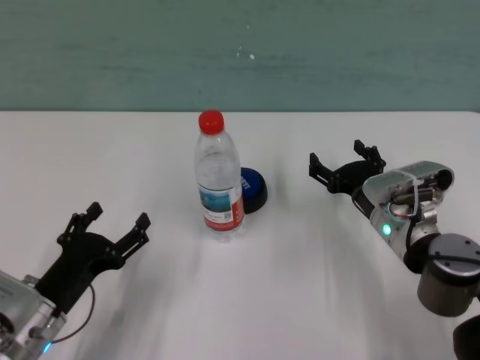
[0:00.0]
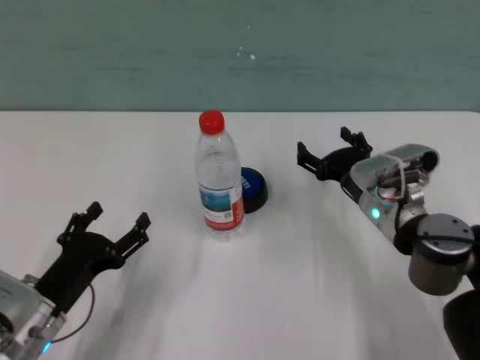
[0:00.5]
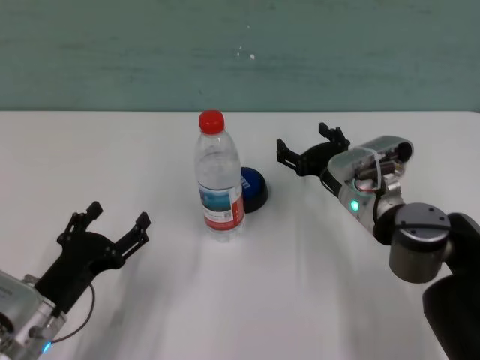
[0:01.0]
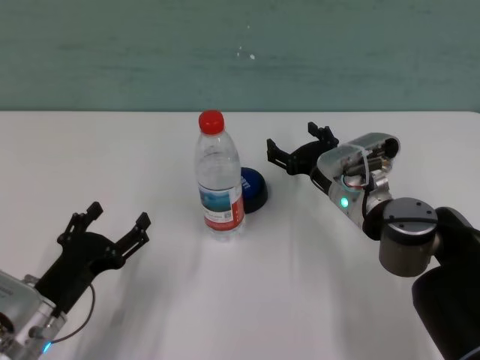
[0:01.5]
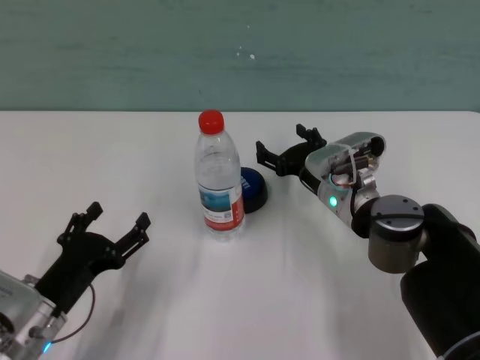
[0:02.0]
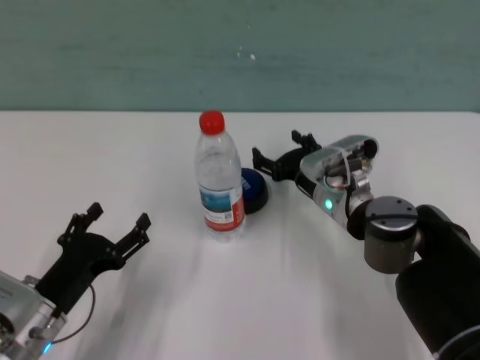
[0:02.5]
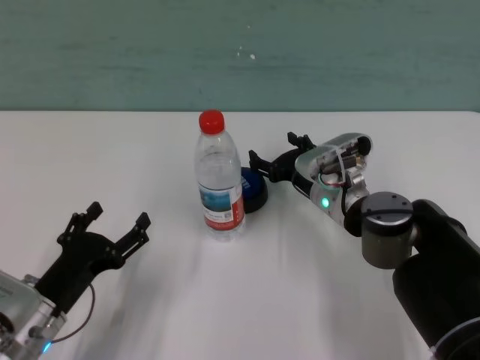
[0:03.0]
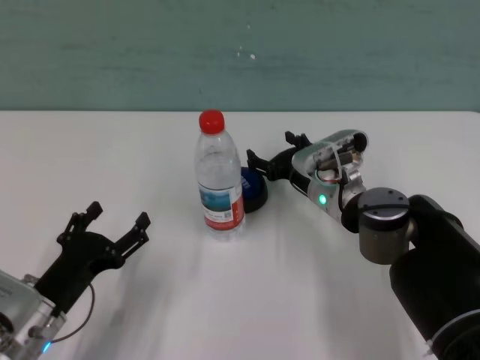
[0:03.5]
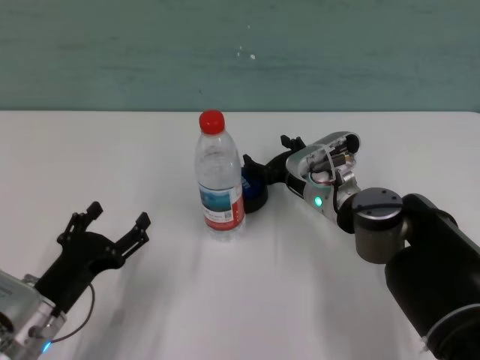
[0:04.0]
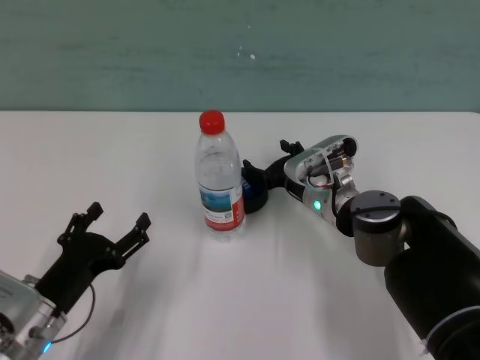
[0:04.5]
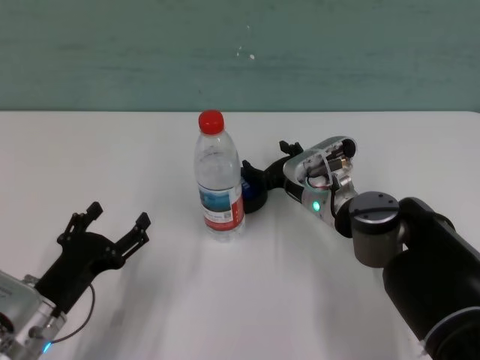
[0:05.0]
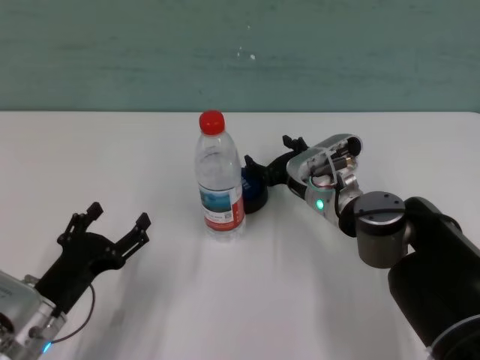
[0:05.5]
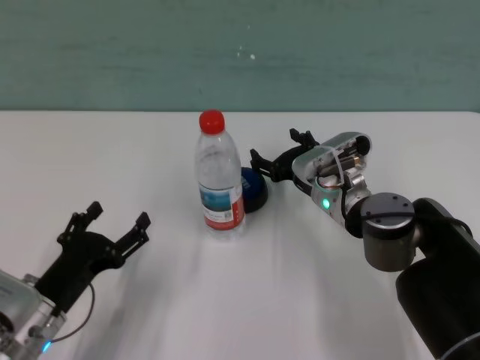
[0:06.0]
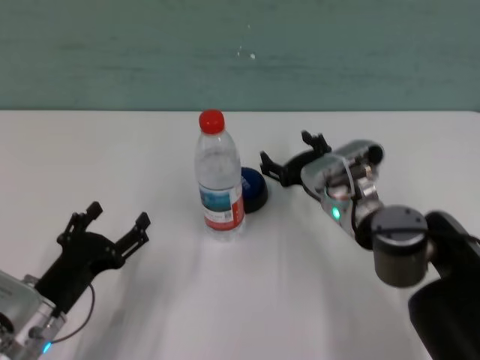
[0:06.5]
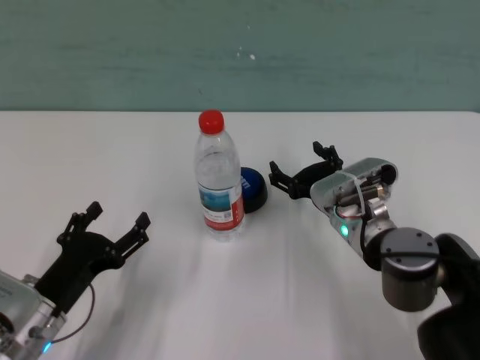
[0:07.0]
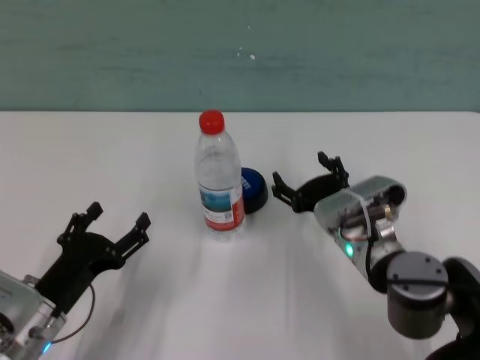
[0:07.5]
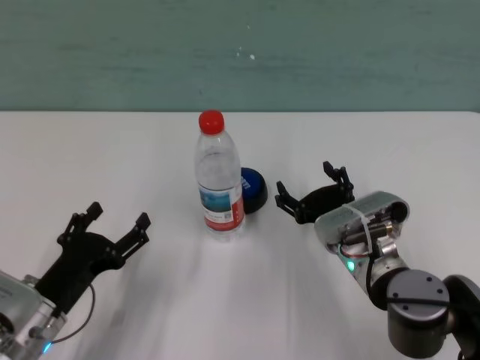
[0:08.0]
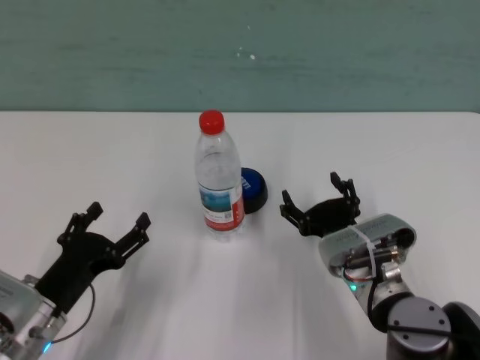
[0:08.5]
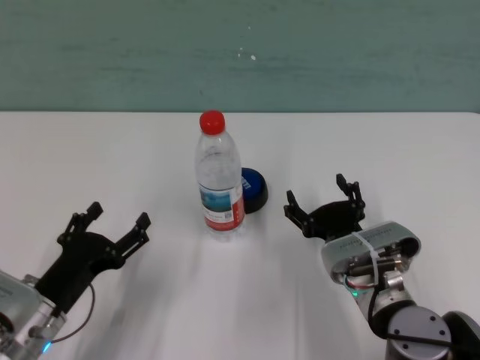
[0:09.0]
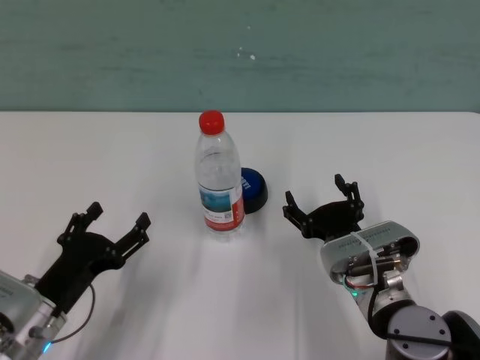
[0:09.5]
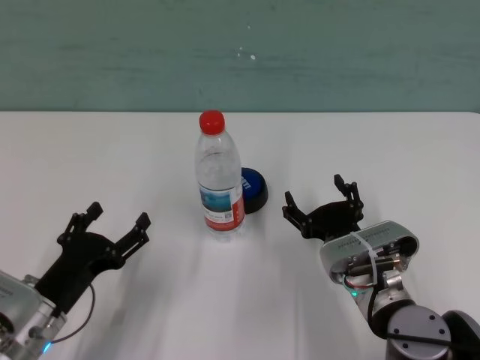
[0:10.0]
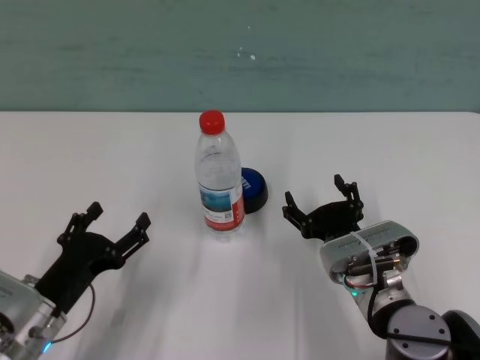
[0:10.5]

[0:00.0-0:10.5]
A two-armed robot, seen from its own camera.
Task of the whole recording: after avoiding the water bottle on the table, press the button.
Step, 0:00.0 to 0:05.5: Press the button blocked by the bottle with right gripper.

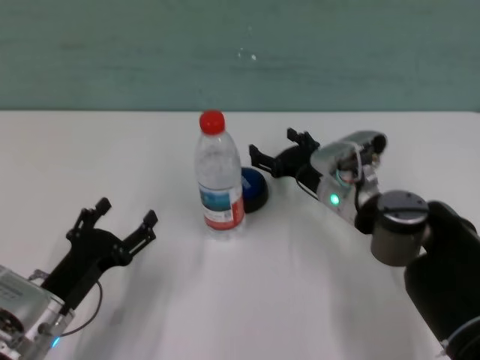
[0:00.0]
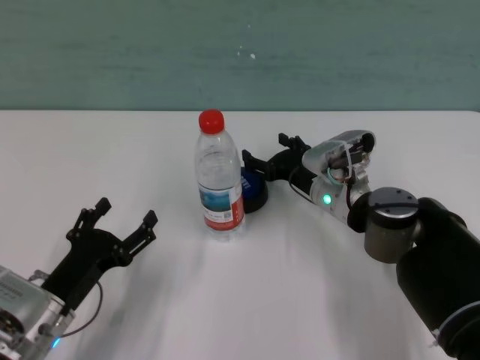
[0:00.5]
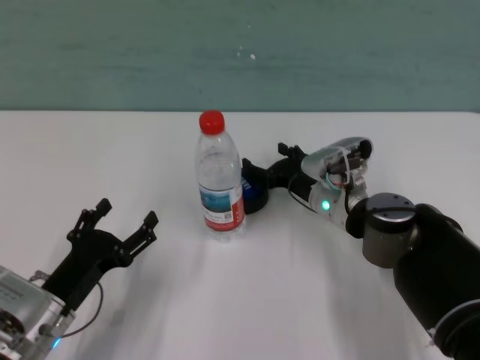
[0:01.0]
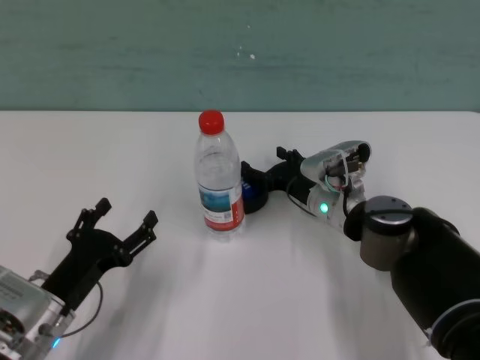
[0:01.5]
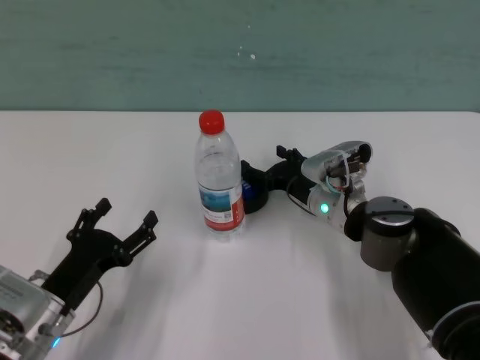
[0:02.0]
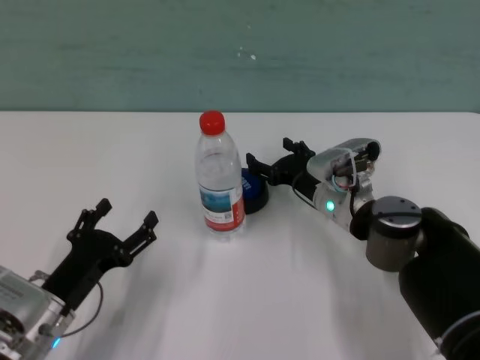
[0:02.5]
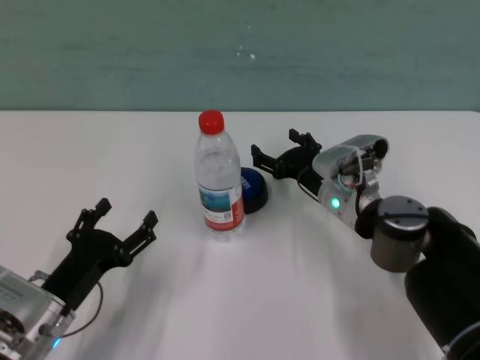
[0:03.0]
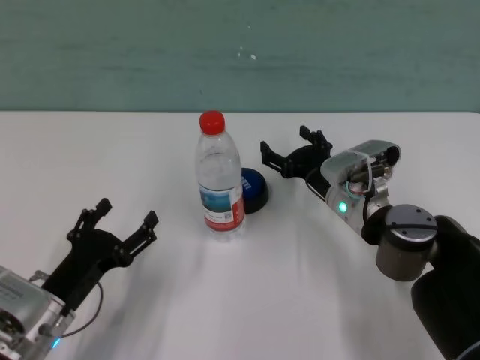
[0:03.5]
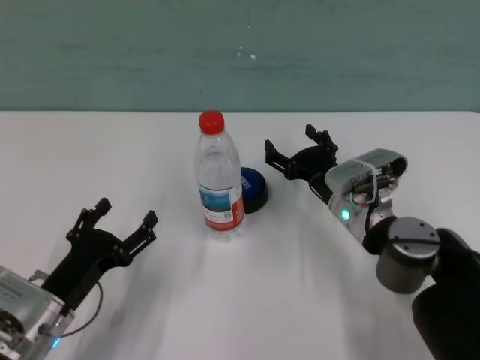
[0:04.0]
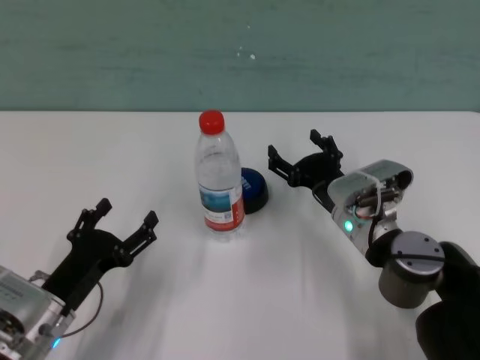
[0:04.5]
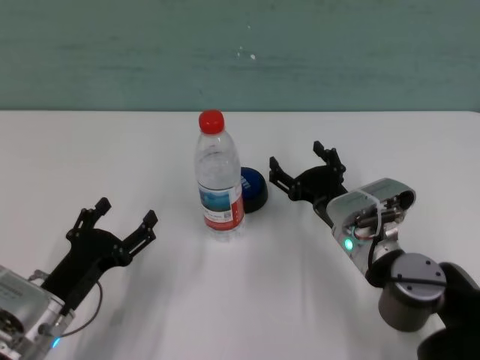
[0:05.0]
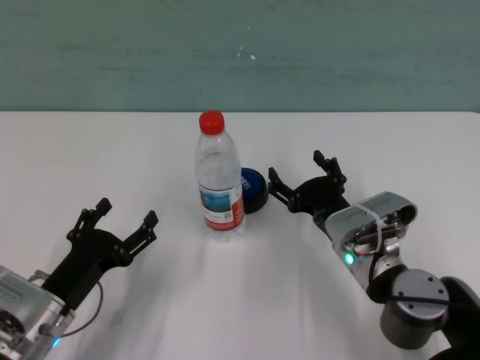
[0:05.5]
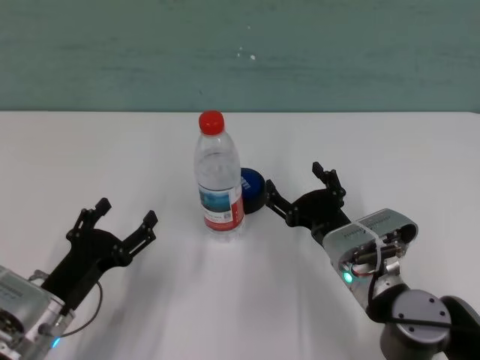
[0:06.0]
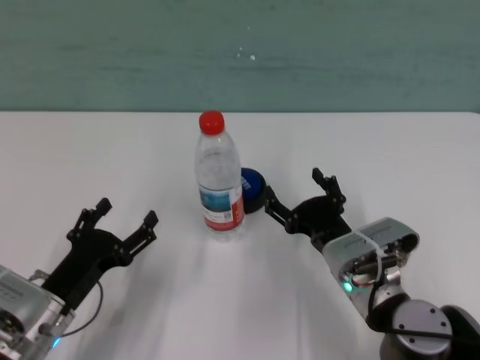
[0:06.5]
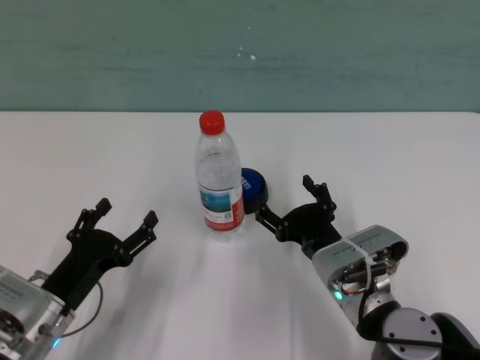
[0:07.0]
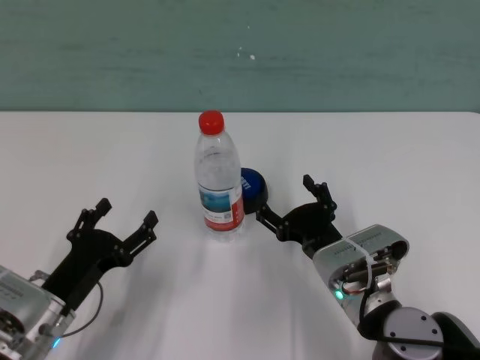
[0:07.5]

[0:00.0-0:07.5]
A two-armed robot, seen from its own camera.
Task of the whole recording: after avoiding the water bottle on the table, press the button.
Step, 0:00.0 to 0:02.0: Press the button blocked by the bottle with right gripper.

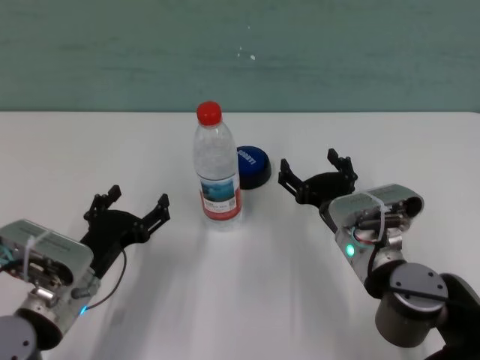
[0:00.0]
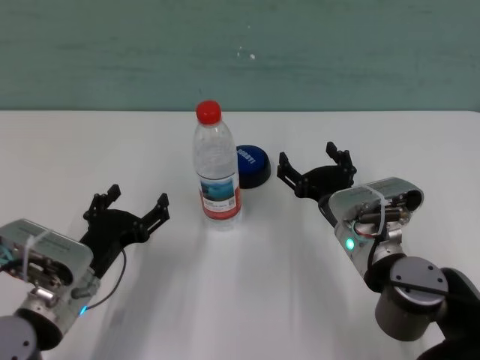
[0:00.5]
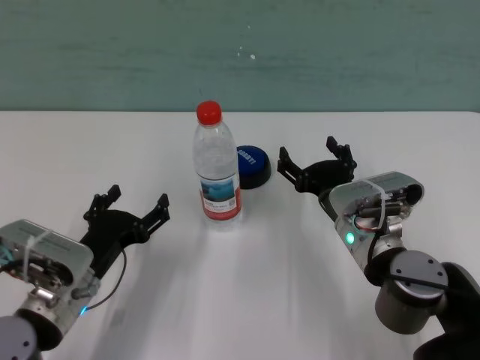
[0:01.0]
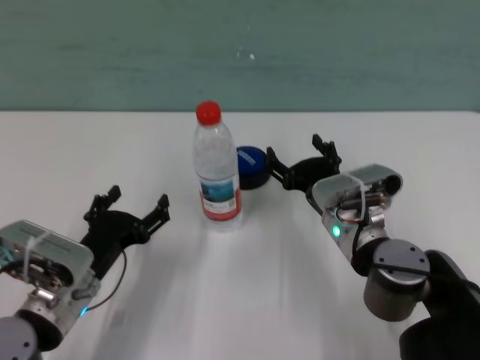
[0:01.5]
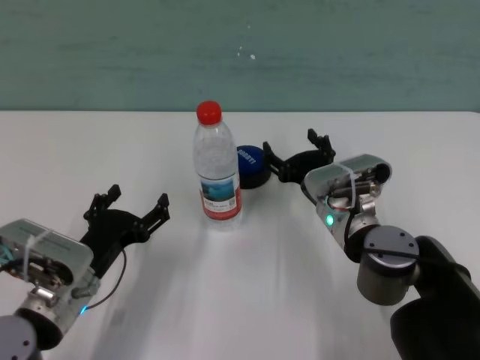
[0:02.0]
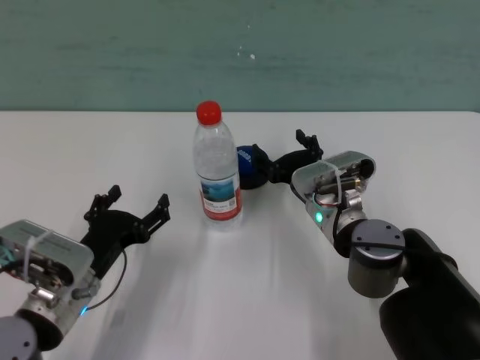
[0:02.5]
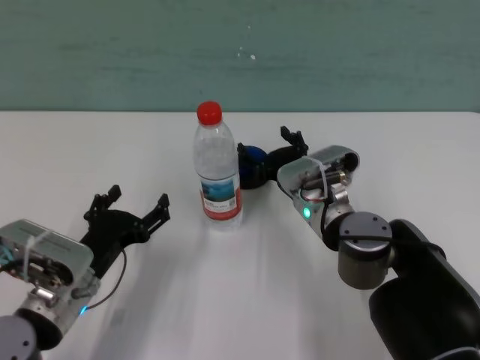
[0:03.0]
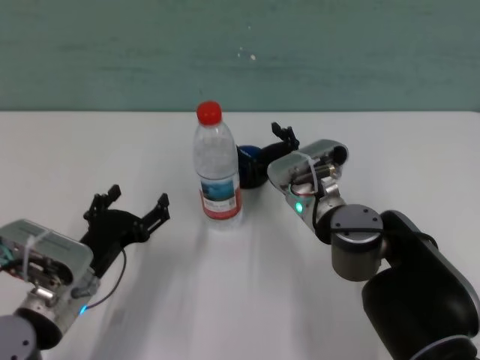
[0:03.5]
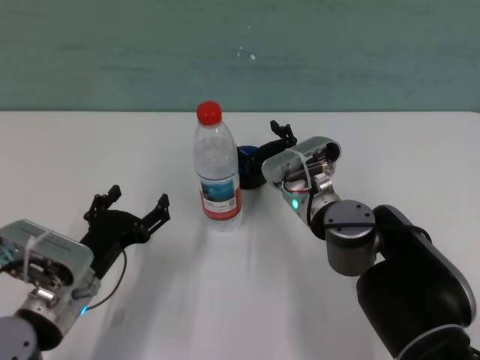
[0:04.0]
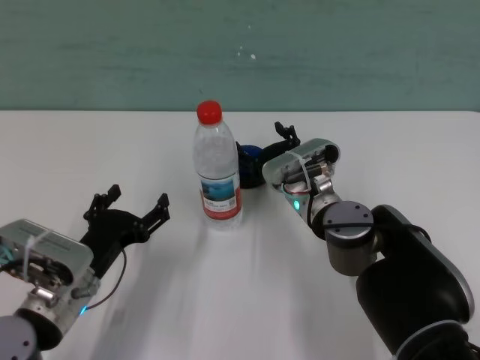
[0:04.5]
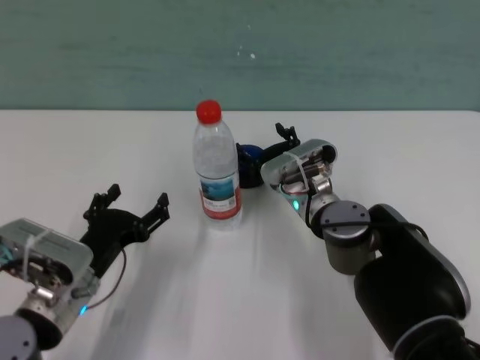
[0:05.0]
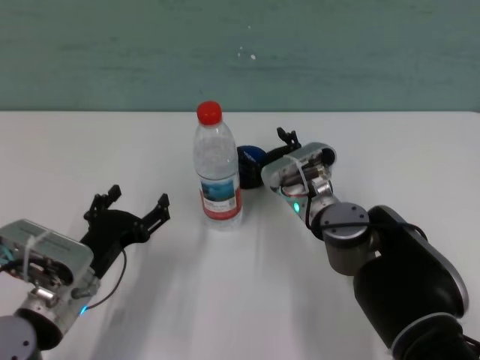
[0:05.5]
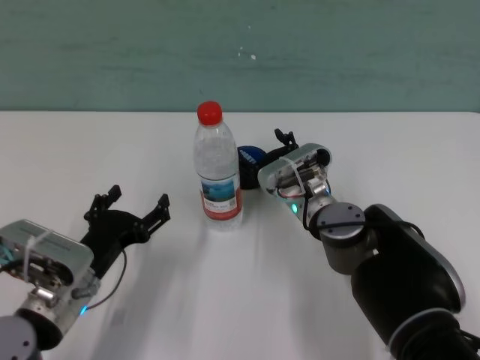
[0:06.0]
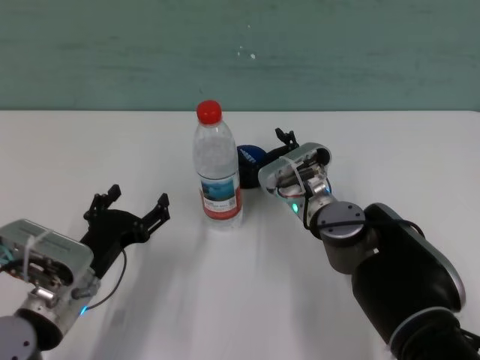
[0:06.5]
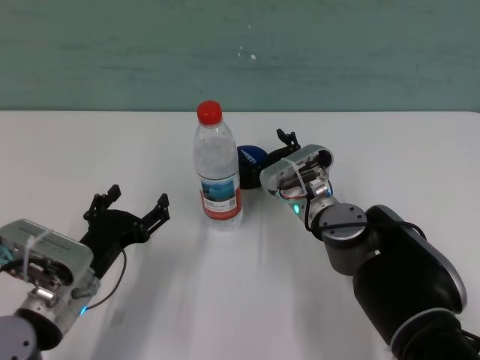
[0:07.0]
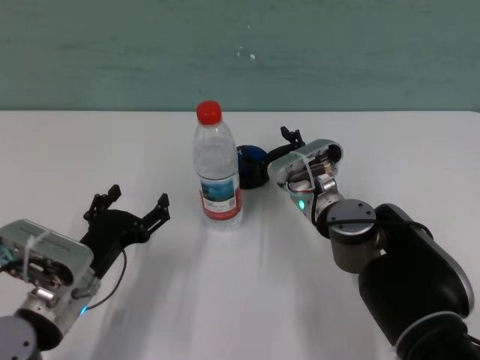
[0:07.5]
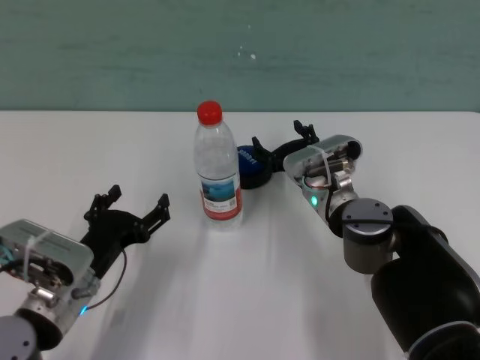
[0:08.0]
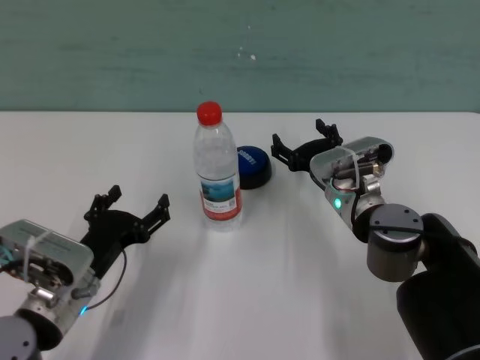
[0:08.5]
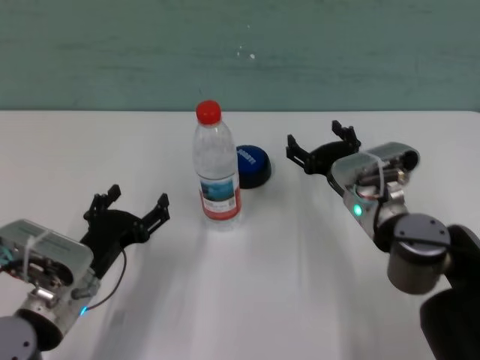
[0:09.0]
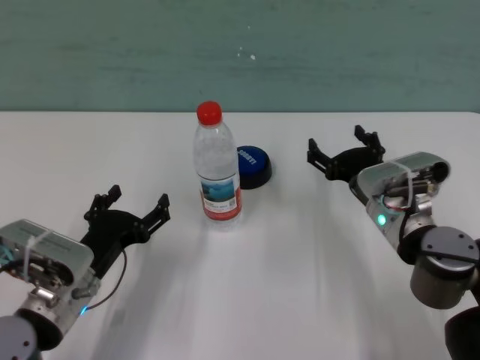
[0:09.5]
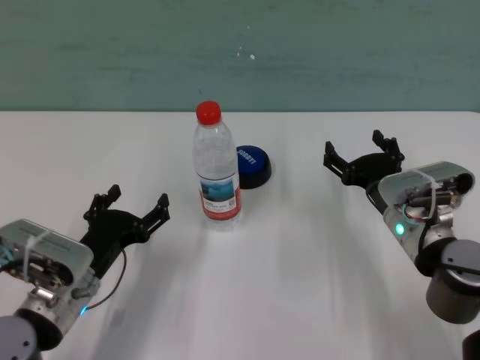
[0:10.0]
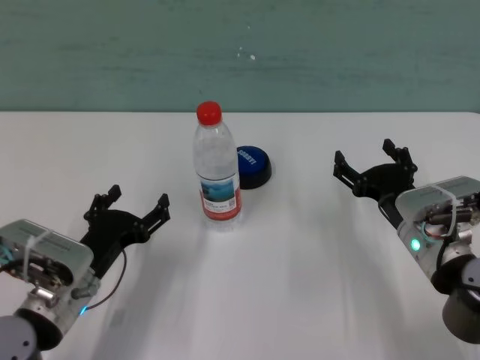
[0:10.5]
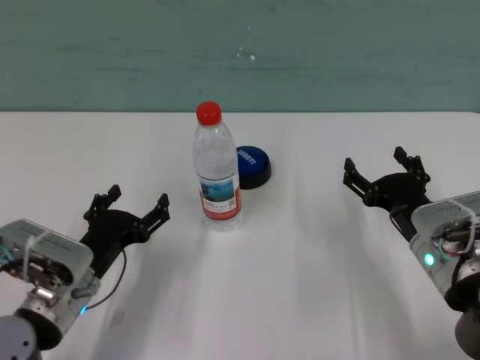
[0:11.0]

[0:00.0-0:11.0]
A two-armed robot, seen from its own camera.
Task of the whole recording: after avoiding the water bottle on the table, press the button.
Step, 0:00.0 to 0:08.0: Press the button blocked by the bottle with right gripper.
